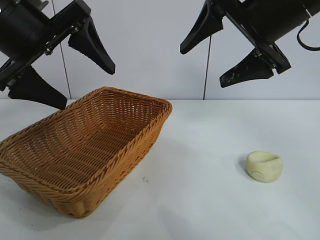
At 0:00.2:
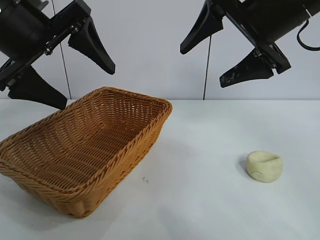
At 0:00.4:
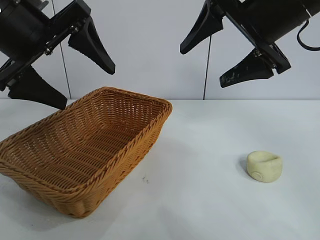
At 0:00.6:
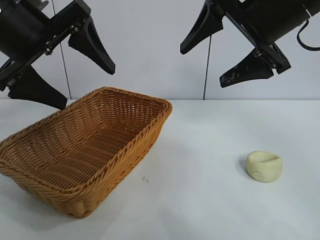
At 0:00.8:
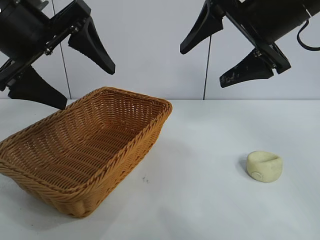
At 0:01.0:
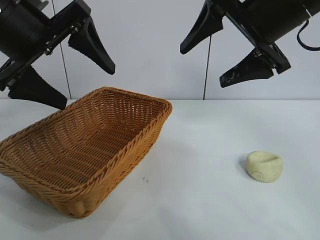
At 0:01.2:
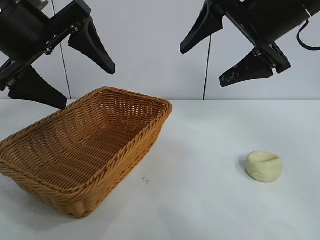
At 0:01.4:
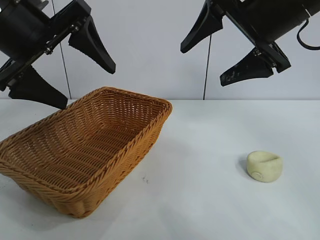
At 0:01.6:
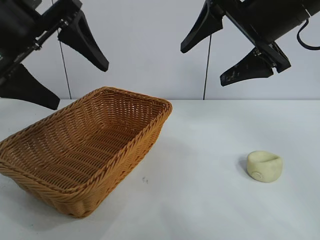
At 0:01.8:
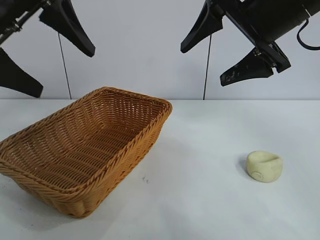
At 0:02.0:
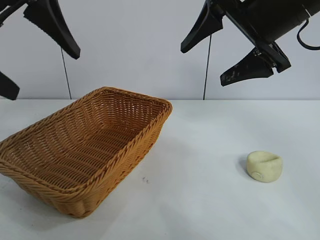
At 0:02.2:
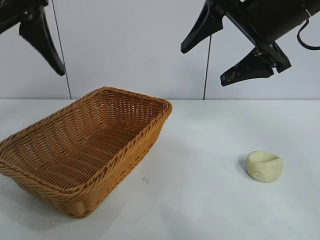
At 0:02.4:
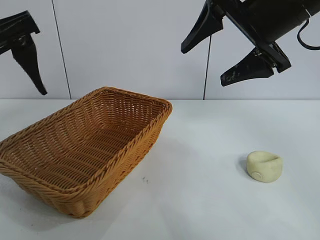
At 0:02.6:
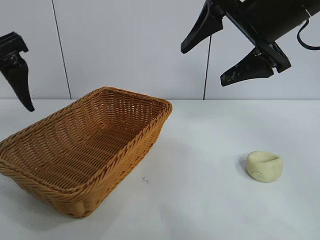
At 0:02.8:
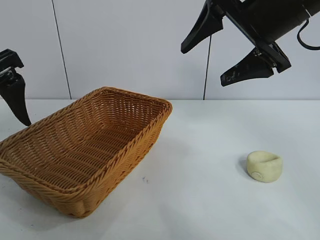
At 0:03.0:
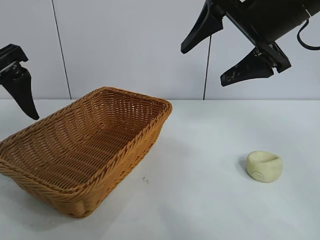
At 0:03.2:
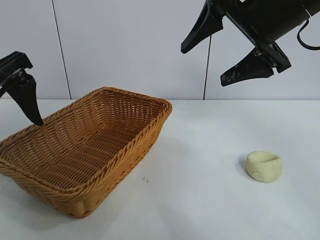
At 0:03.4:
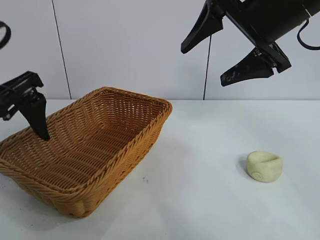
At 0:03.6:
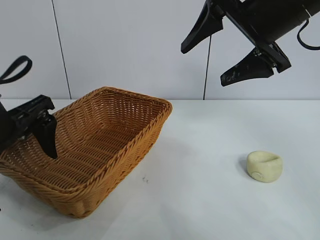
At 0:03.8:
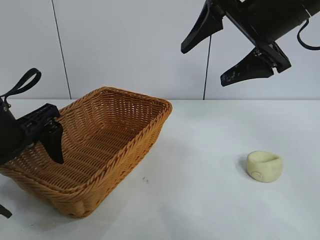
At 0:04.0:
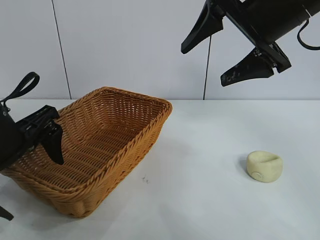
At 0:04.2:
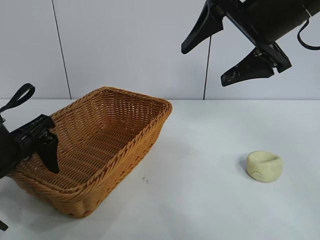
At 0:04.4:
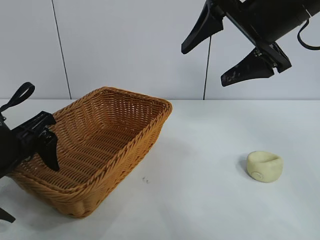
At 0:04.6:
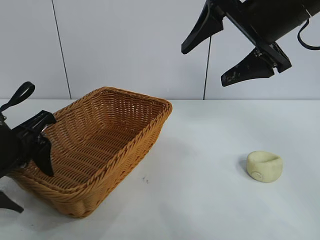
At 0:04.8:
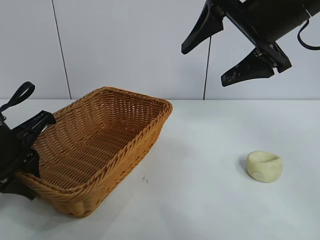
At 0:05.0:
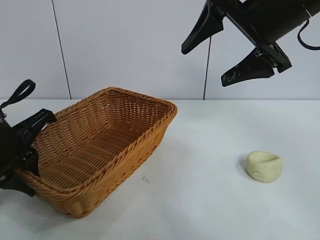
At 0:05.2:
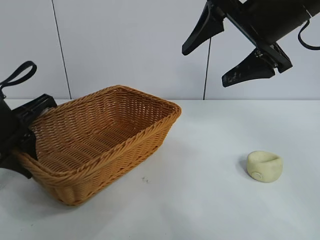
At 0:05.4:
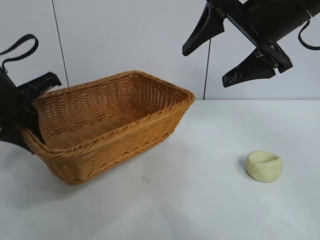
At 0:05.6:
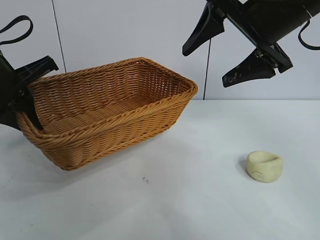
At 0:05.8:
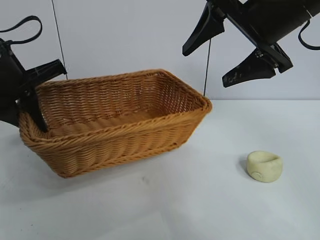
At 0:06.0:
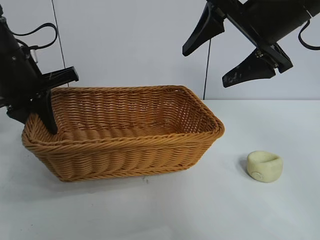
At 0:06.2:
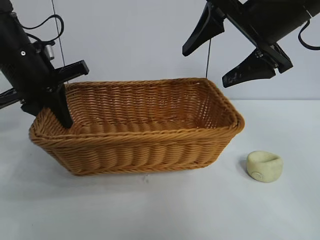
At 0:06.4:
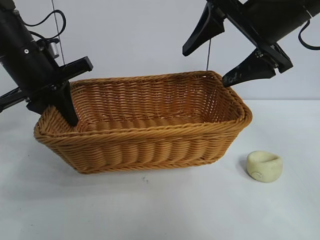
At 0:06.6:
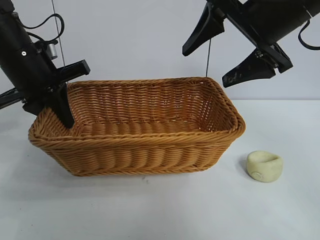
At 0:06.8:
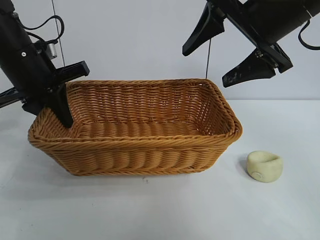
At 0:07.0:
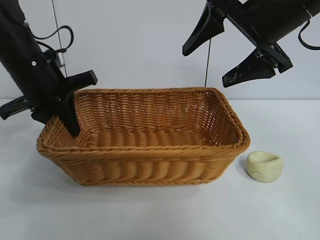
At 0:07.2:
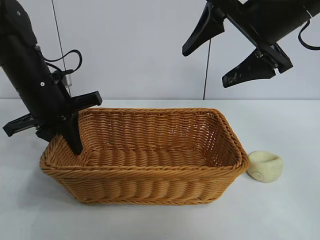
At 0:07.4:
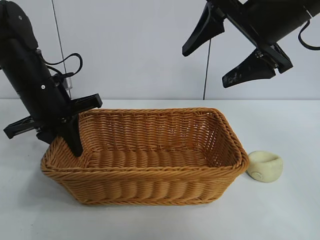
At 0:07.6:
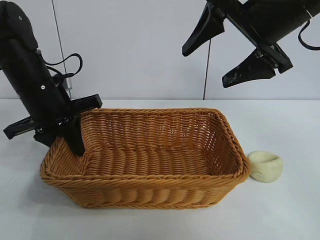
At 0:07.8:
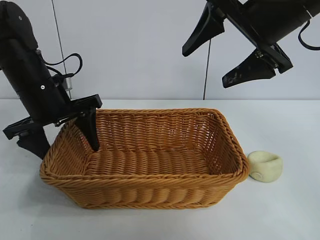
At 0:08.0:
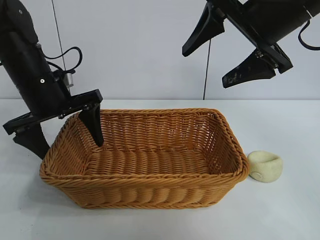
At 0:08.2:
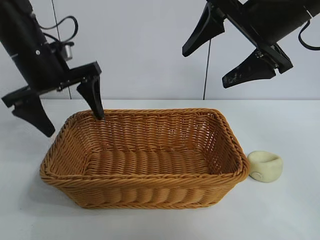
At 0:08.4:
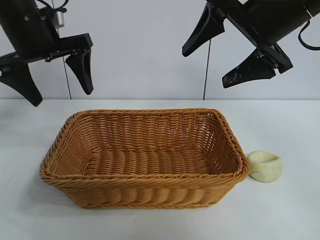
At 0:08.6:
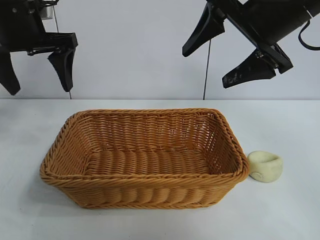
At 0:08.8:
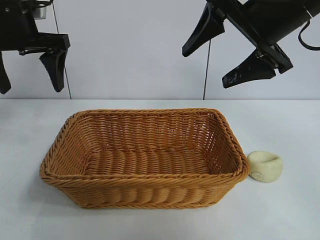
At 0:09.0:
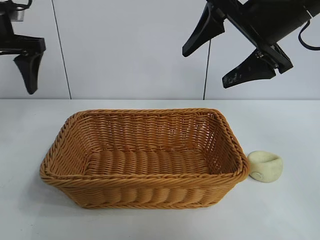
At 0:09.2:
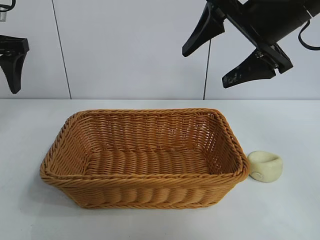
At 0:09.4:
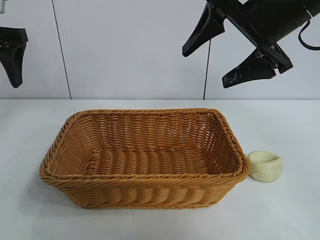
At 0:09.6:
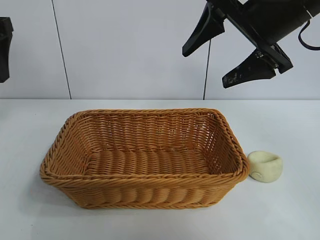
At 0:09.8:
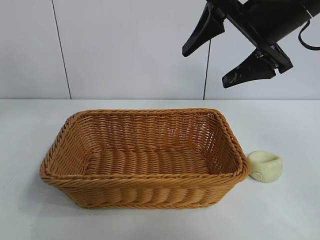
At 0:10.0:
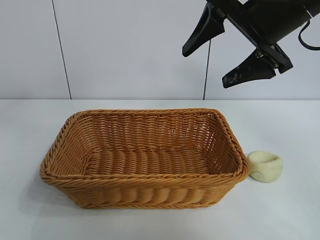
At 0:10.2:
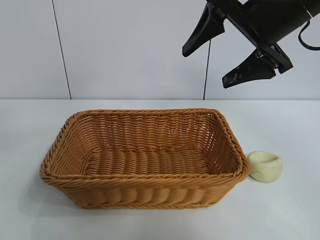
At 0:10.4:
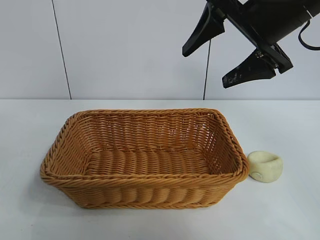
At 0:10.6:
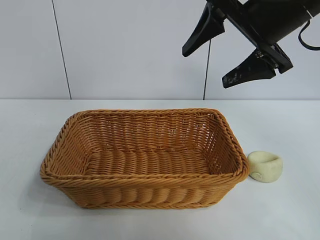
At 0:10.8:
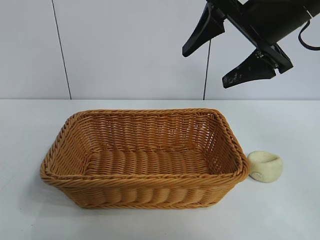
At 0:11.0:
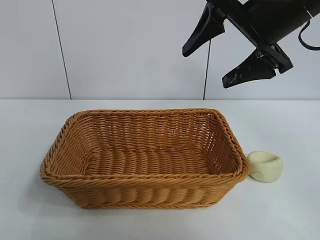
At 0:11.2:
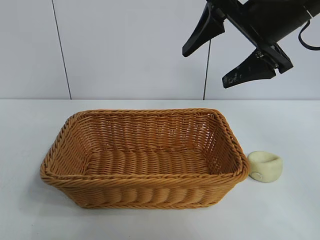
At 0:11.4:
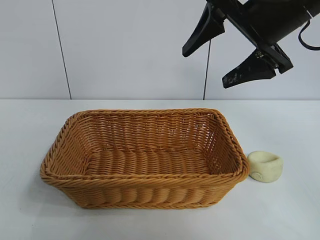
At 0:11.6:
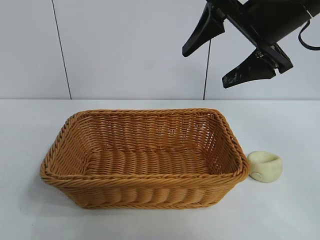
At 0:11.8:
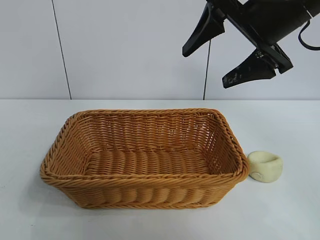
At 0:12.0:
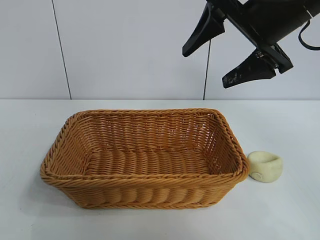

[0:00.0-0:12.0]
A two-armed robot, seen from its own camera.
Task of the whole recording: pick up the egg yolk pastry and put it into the basket.
Step, 0:01.2 to 0:04.8: Grasp the basket with left gripper.
Step, 0:05.0 to 0:07.8: Place the basket in the center of view with left gripper.

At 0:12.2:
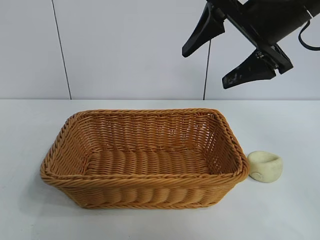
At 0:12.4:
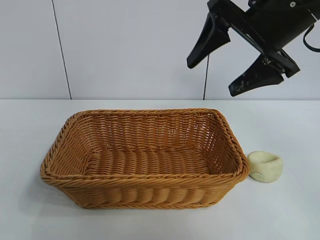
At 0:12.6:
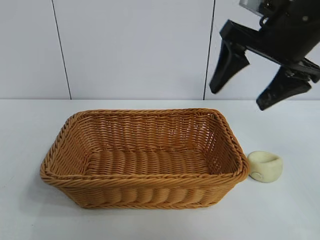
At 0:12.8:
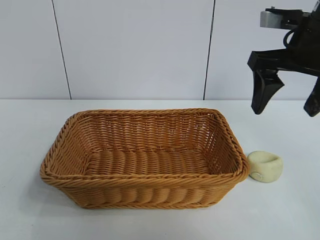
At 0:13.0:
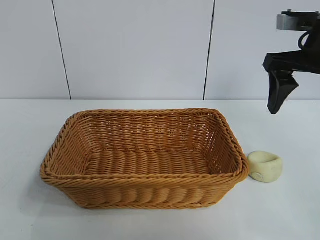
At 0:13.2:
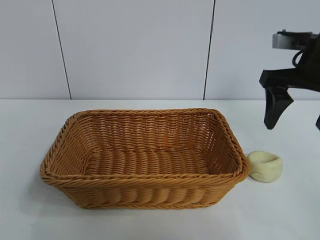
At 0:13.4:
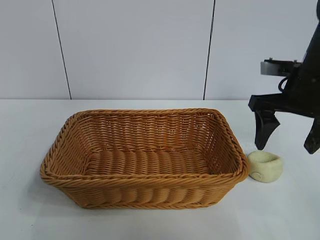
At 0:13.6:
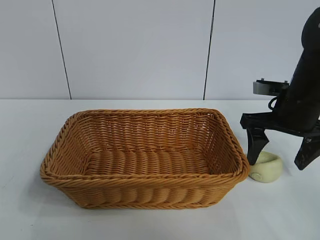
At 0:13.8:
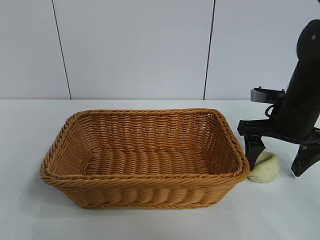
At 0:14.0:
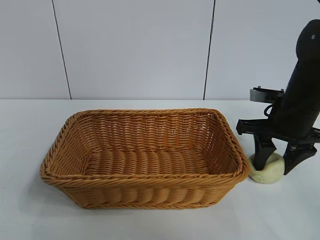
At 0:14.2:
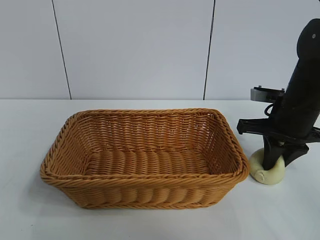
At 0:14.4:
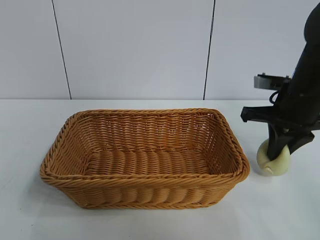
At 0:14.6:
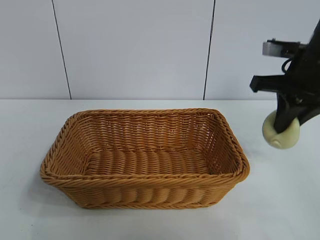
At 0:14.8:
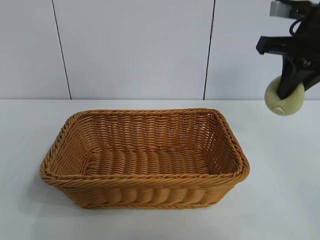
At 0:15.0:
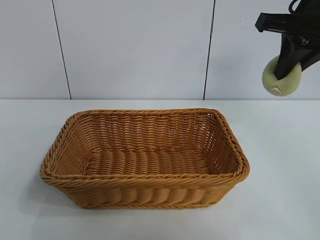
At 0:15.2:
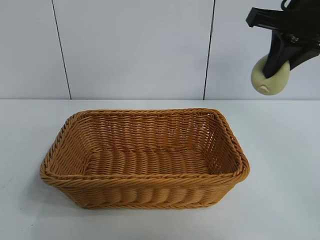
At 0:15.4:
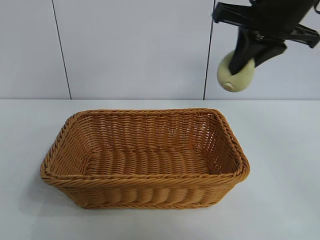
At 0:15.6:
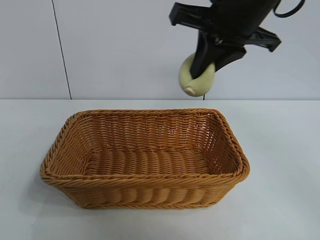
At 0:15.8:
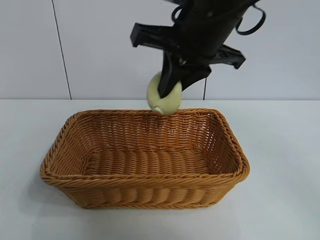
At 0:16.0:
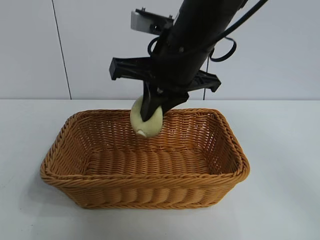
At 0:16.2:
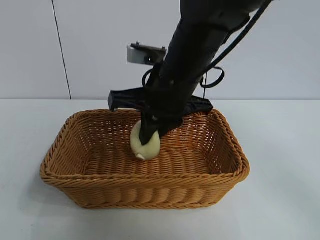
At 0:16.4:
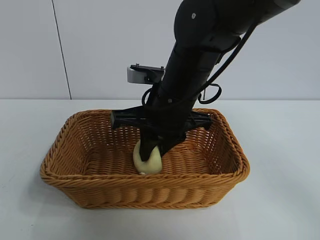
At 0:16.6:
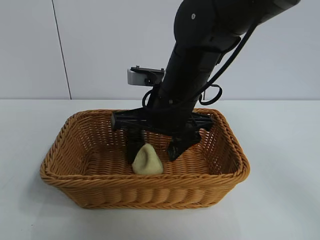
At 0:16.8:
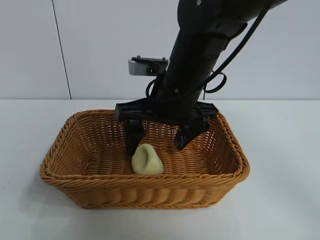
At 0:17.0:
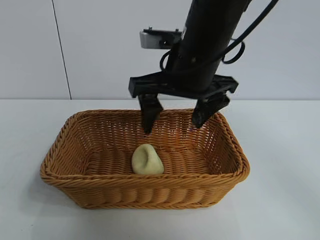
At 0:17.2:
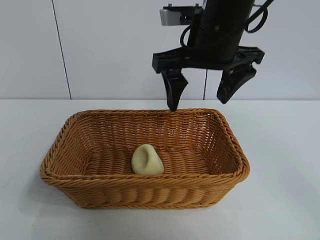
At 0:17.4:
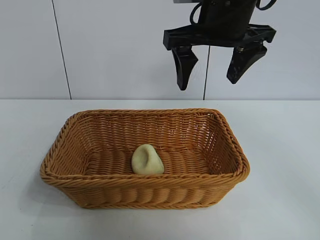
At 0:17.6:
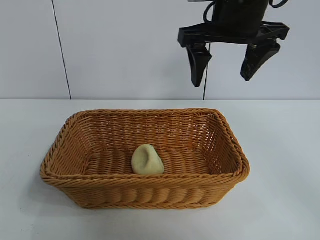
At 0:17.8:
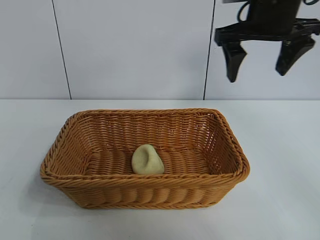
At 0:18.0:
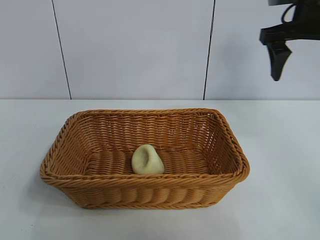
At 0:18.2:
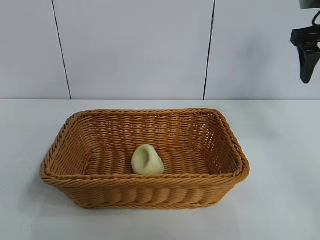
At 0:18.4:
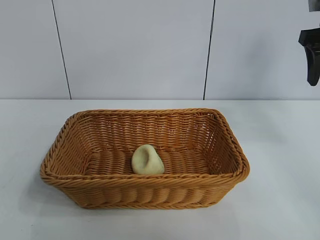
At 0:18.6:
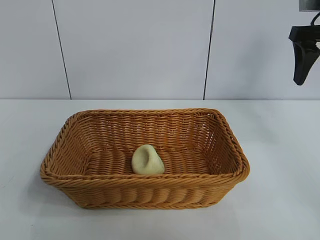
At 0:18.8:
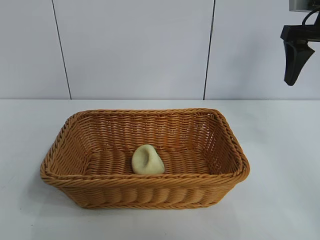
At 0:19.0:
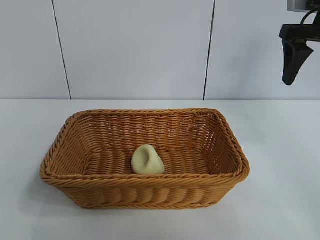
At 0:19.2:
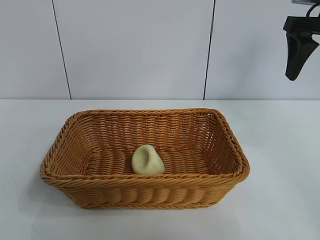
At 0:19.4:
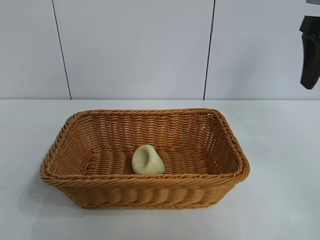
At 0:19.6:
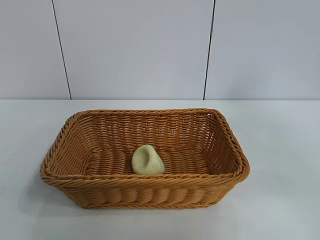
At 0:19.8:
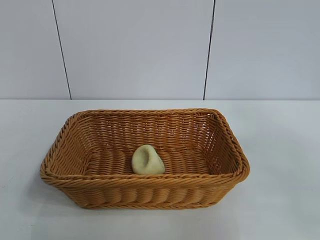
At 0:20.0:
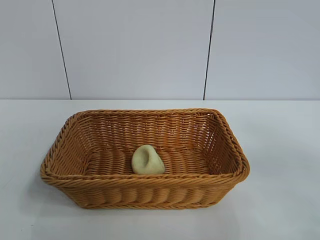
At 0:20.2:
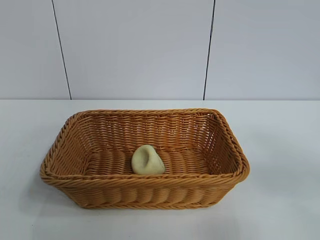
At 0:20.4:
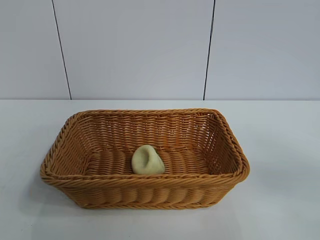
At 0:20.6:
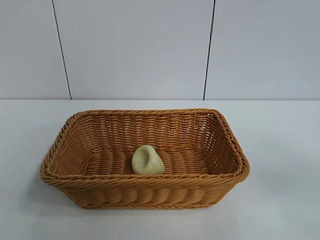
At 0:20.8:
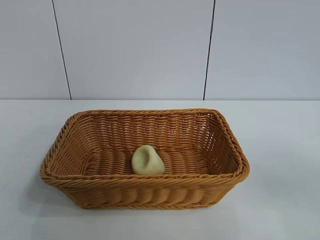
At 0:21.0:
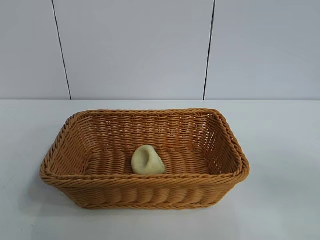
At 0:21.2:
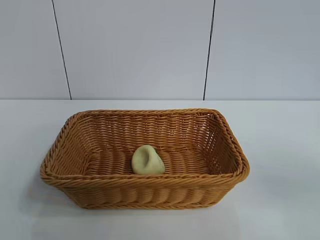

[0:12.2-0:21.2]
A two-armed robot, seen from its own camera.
Task of the whole recording: pick up the egg yolk pastry and put it into the basket.
Step, 0:12.2 to 0:14.2: Grasp egg yolk pastry with right gripper.
Step, 0:14.4 to 0:16.6: Place the egg yolk pastry in the basket with right gripper.
